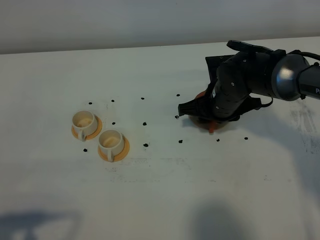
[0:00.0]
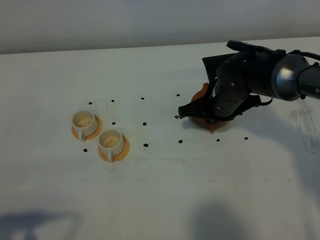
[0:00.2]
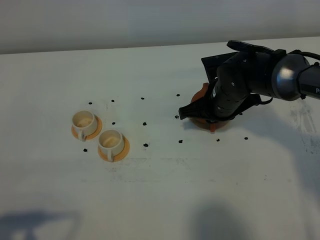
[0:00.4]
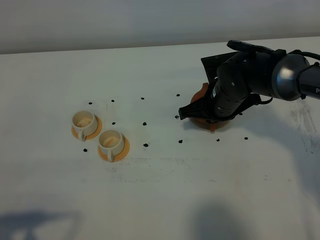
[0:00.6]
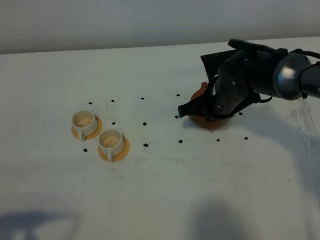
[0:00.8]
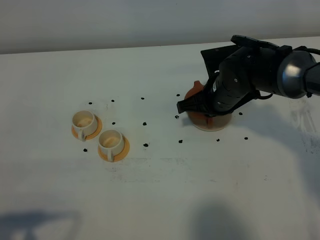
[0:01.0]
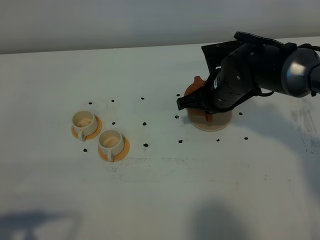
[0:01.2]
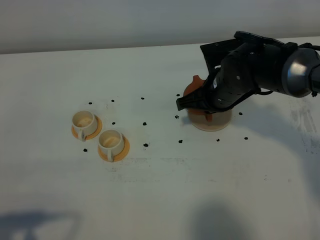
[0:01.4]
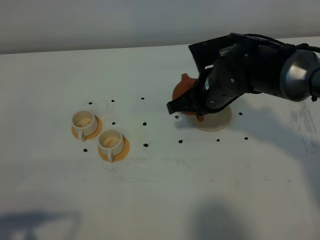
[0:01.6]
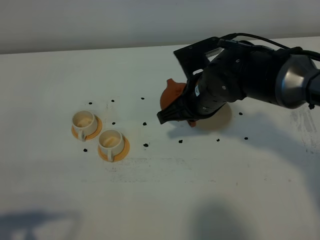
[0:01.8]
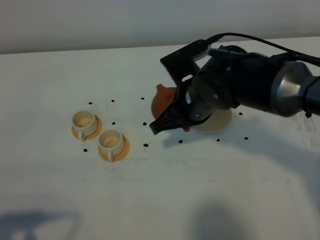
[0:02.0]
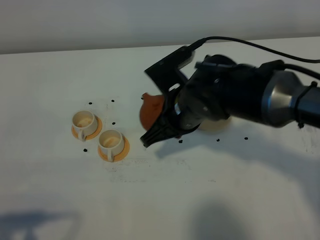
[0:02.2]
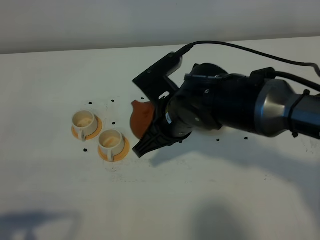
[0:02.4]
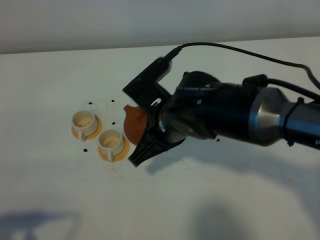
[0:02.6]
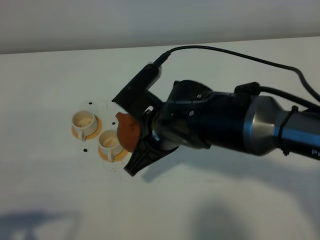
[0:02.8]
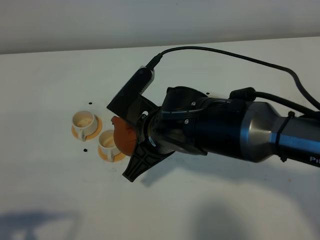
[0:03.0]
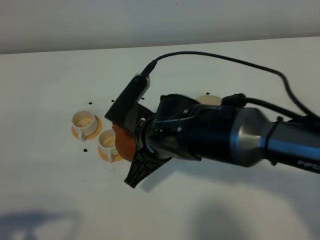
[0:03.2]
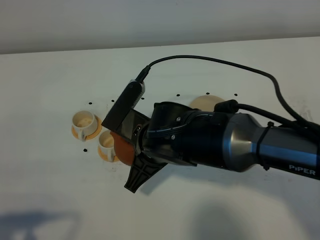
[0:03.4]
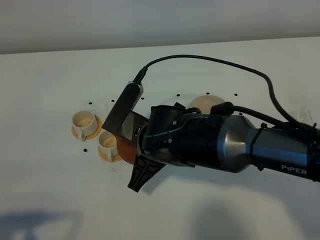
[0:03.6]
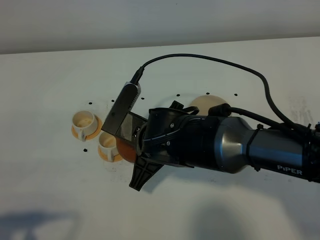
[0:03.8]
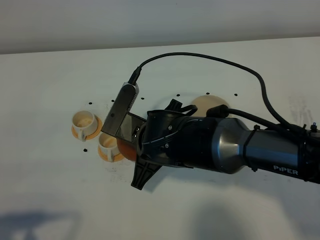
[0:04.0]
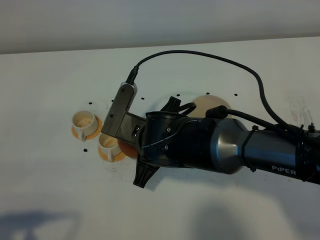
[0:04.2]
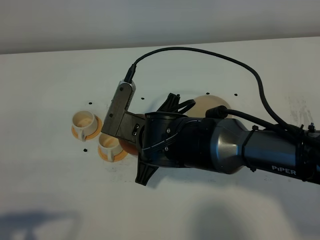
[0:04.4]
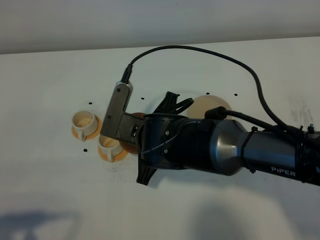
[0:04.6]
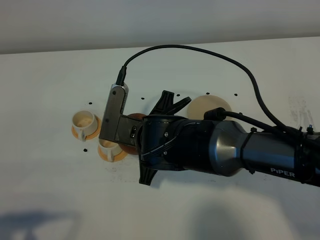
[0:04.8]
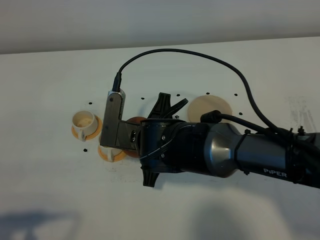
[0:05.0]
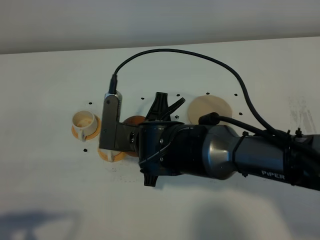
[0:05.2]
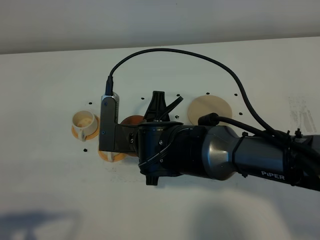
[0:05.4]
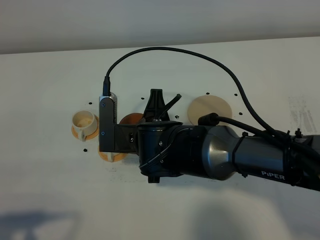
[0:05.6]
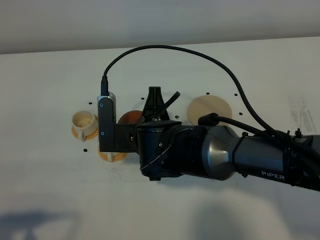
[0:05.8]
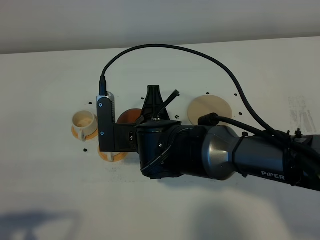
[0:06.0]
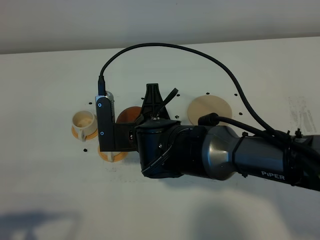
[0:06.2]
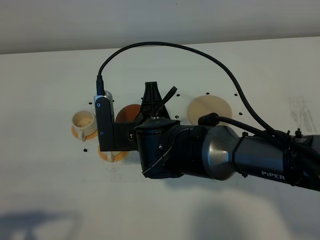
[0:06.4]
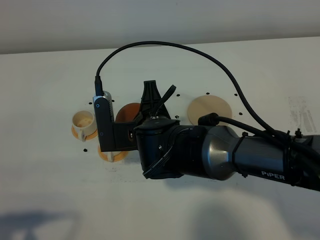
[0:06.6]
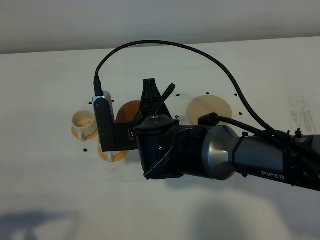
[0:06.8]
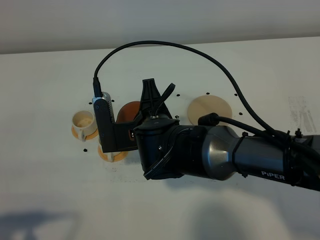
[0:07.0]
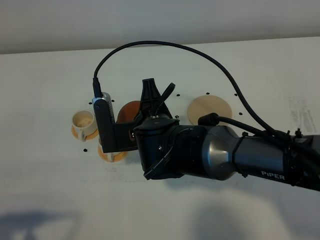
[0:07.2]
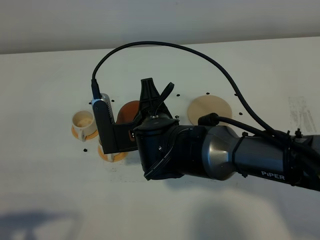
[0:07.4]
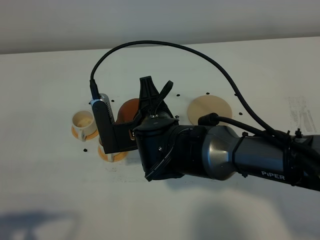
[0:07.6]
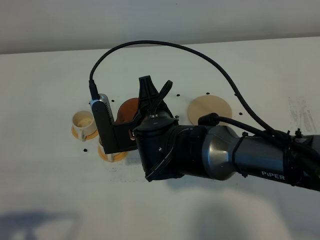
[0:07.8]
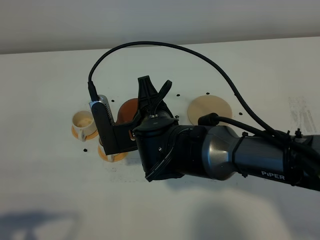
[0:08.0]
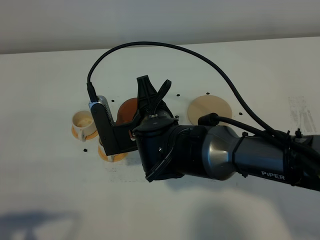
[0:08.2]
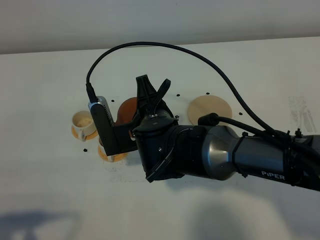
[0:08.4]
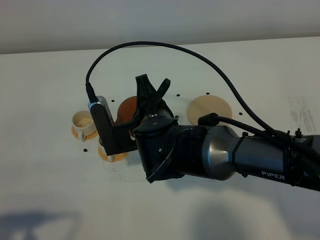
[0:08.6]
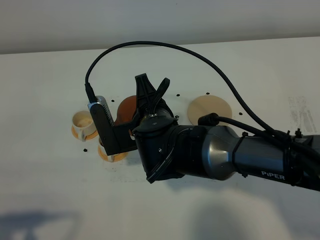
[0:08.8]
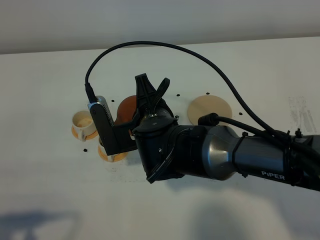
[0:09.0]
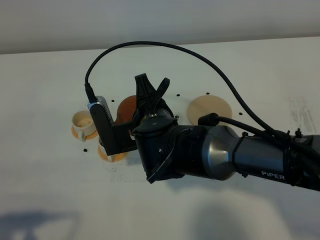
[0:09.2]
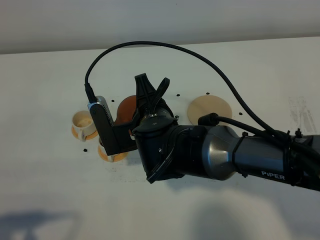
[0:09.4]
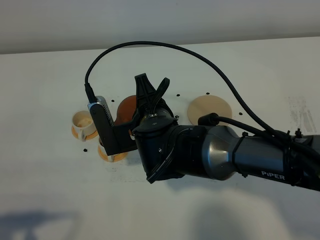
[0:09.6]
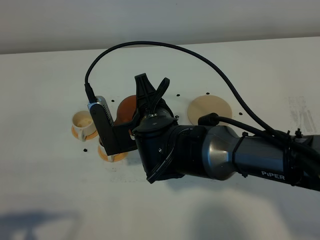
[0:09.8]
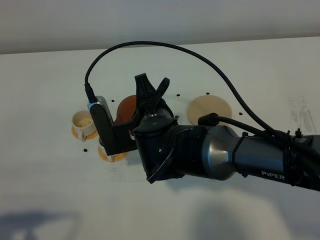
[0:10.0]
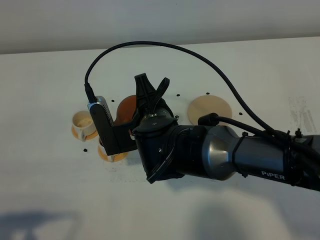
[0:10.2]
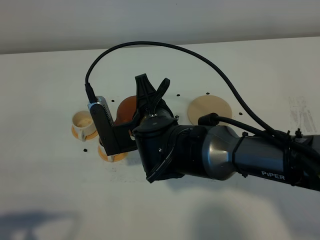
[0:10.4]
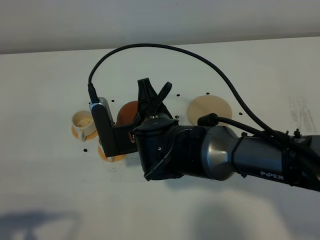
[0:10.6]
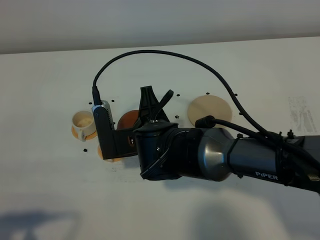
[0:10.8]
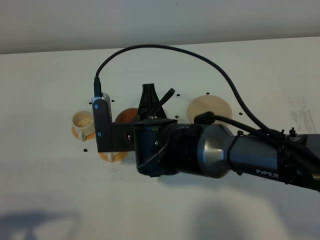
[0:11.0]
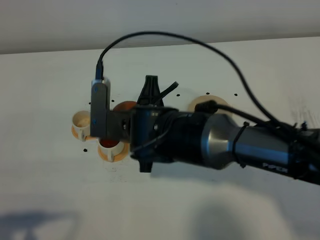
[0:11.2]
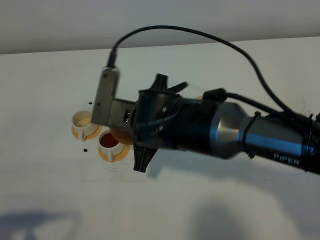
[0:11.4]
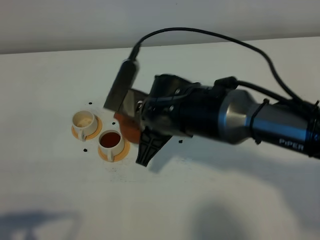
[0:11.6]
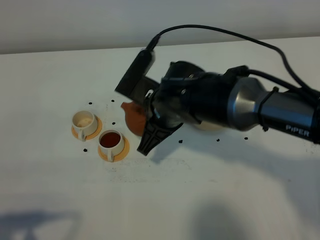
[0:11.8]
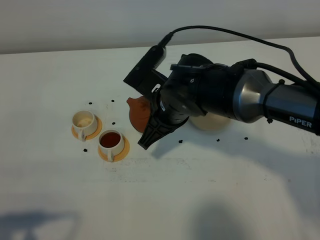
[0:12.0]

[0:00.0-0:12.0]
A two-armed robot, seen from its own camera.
Task of the whole recording: grasp the brown teapot and pour the tea into the two white teacups one by one, put the brown teapot back in its original place.
0:00.0 to 0:01.6: The right gripper changes place by roughly 5 cm, and closes its fingers.
0:01.6 to 0:03.0: The right gripper heads to the left and backward, covering approximately 15 cm.
0:06.0 to 0:09.0: The grippers move only a little.
0:09.0 to 0:10.4: The two grippers keep their place.
0:10.4 to 0:12.0: The right gripper ends up approximately 5 cm from where it was.

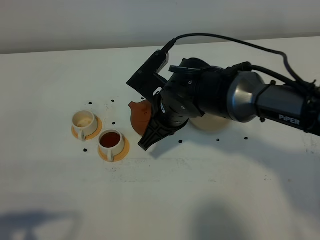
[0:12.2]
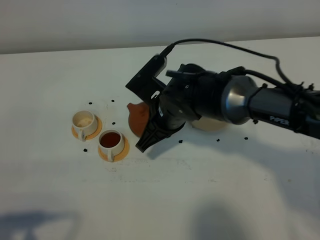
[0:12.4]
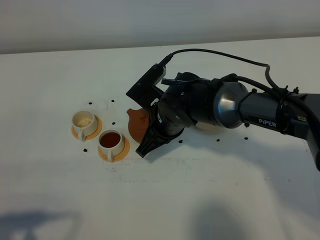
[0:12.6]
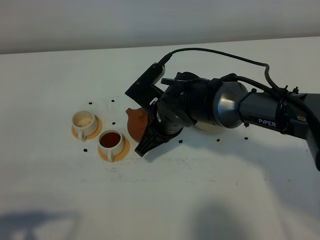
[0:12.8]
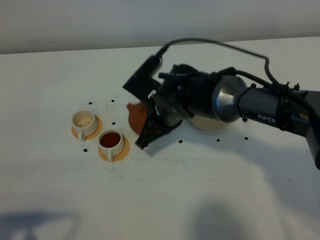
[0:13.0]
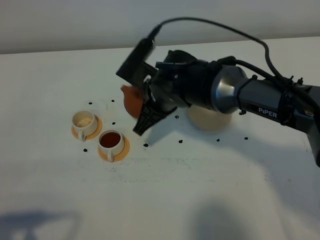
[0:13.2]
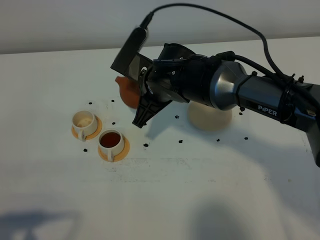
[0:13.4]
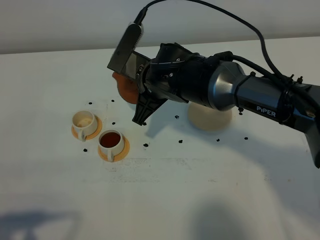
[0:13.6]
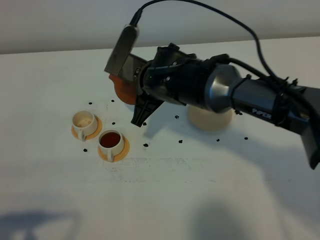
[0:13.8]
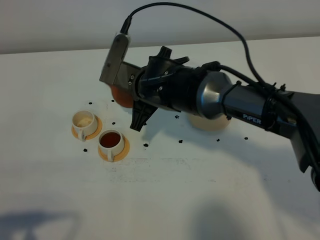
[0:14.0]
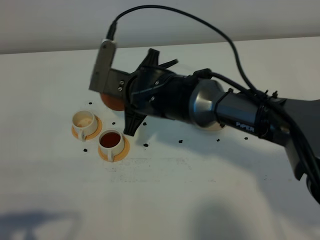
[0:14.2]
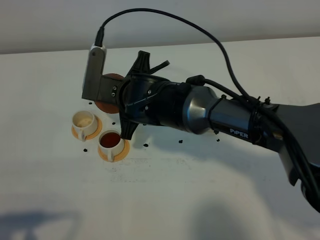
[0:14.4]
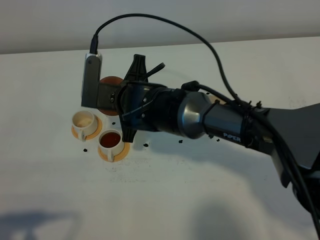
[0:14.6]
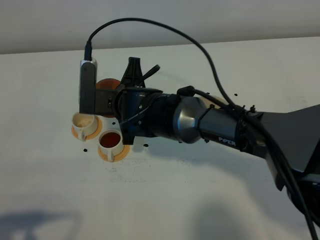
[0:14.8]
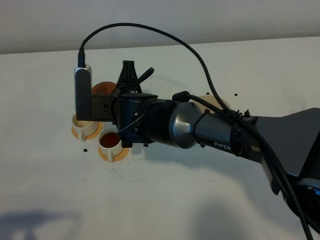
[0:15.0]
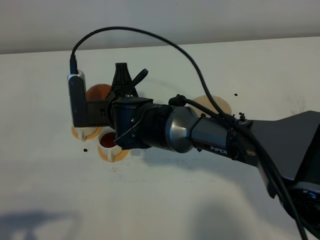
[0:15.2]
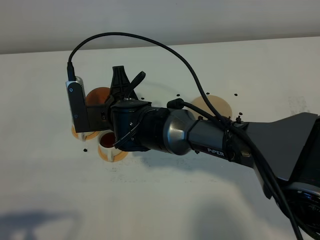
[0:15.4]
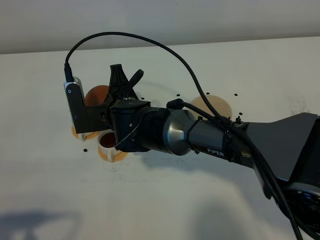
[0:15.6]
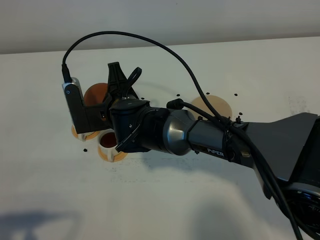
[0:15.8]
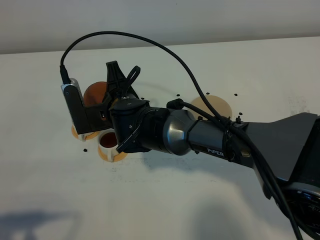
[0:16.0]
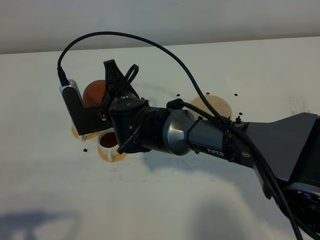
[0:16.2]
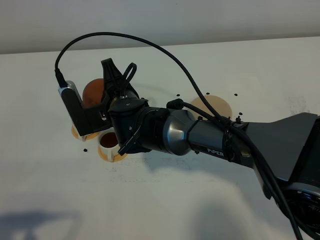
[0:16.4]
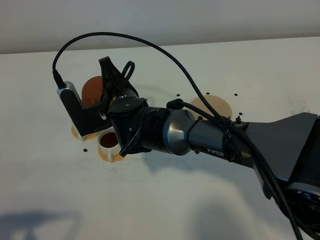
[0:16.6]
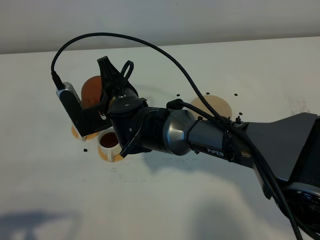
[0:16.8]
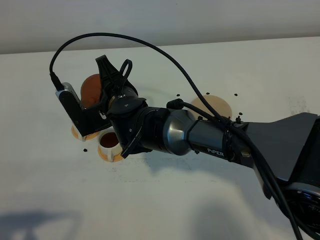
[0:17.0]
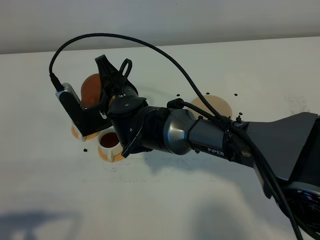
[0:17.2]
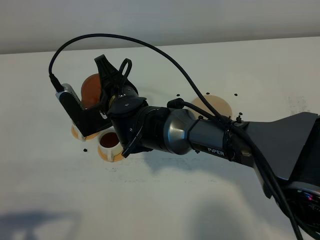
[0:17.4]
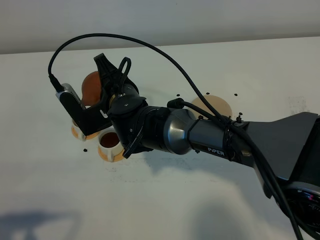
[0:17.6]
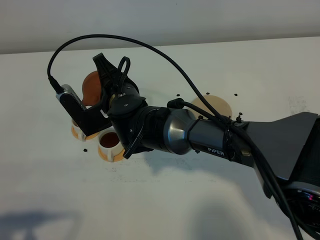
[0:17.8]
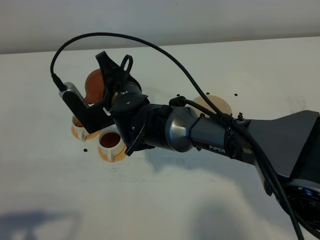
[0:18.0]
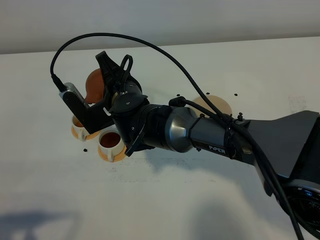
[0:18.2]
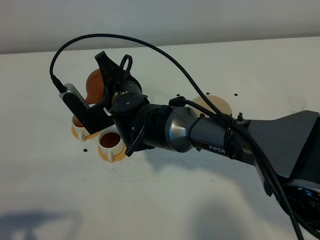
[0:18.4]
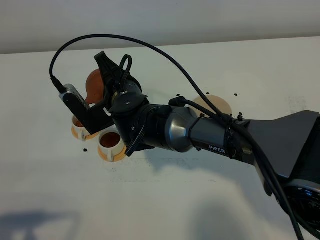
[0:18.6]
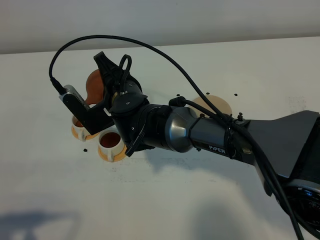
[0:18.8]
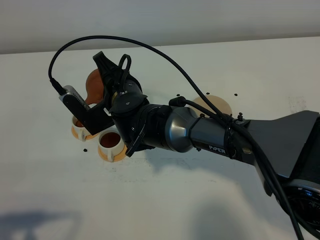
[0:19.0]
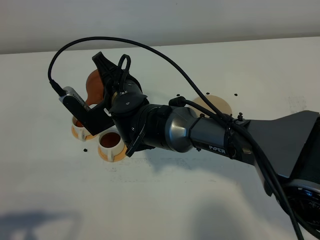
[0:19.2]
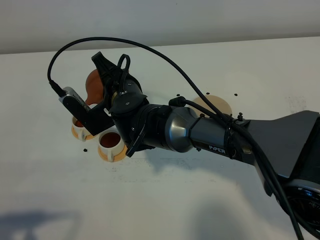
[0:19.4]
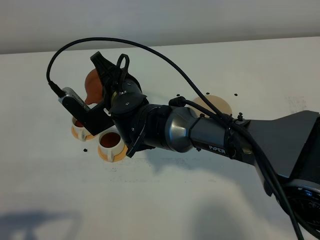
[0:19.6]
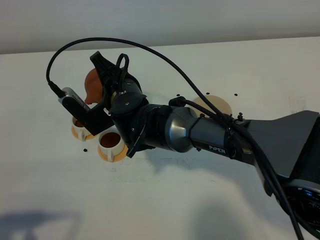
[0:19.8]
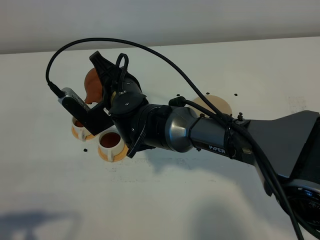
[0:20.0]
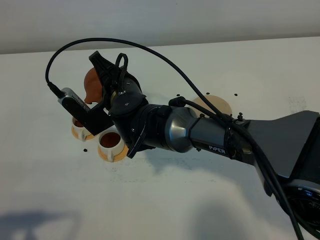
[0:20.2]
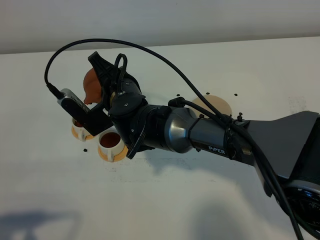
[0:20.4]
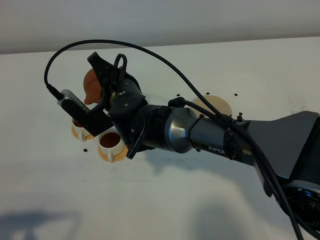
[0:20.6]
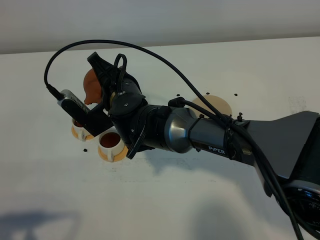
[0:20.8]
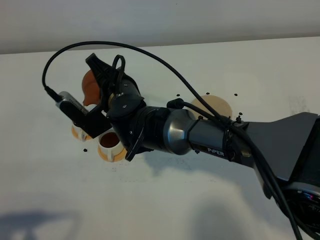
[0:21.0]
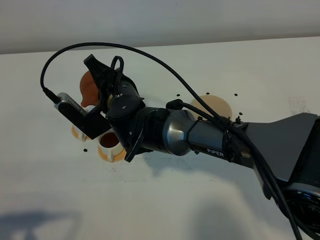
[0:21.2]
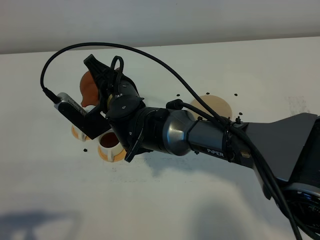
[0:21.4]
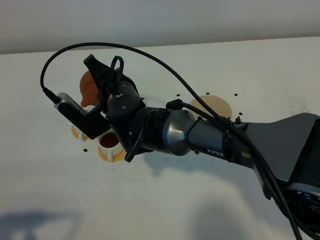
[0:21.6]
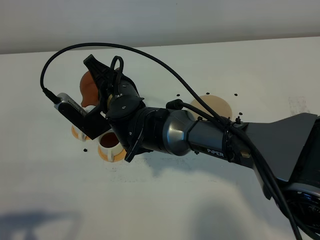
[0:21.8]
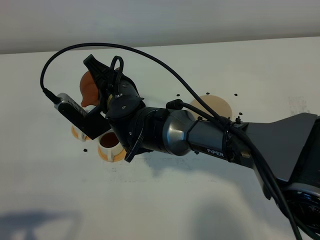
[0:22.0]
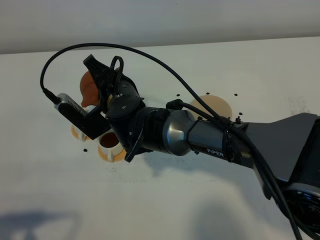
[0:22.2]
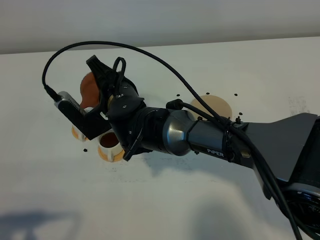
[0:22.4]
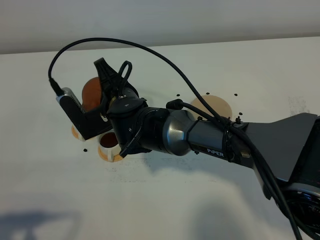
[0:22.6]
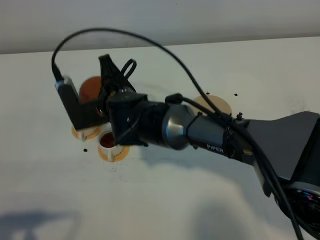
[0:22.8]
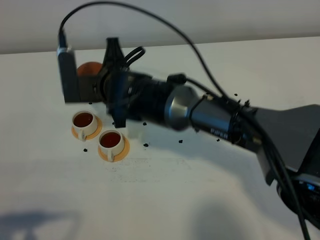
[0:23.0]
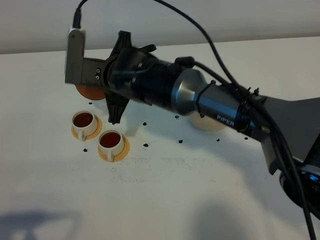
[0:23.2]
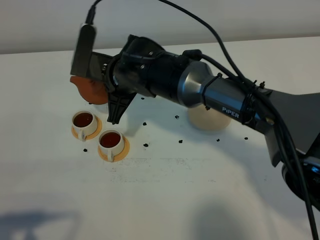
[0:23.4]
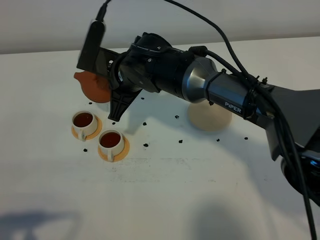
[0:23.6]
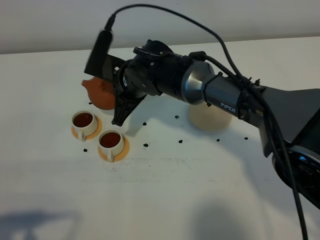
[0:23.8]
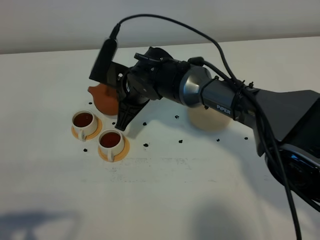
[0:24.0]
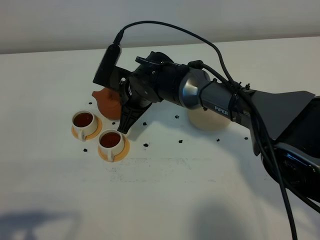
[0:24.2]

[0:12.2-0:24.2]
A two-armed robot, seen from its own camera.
Task of the whole recording: grasp the brown teapot and pour the tea into the two white teacups one by one, put the brown teapot back in its original place.
Step, 0:12.2 to 0:23.2: Pour tea into the teacup with the right gripper.
0:13.8 to 0:15.2: The right gripper shifts some 5 cm to the left.
0:15.2 to 0:16.6: There are only small adjustments of the grippers.
0:16.6 to 0:19.8: The grippers stay close to where they were, moving slightly.
0:19.8 to 0:21.2: Both grippers stay about where they are.
0:21.2 to 0:22.6: There are only small adjustments of the grippers.
0:22.6 to 0:24.2: The right gripper travels forward by about 5 cm.
